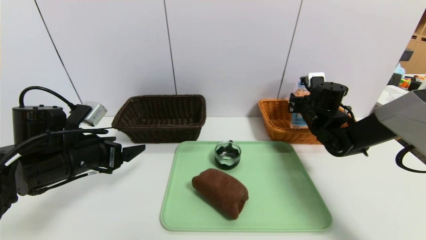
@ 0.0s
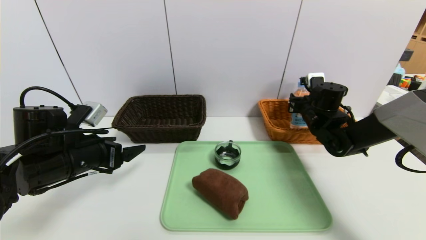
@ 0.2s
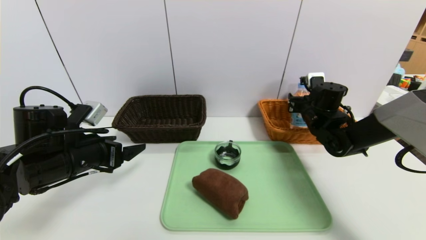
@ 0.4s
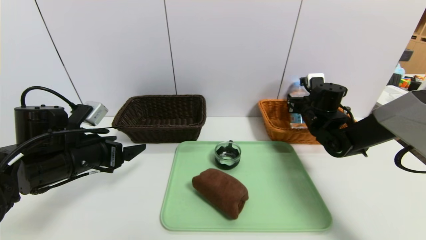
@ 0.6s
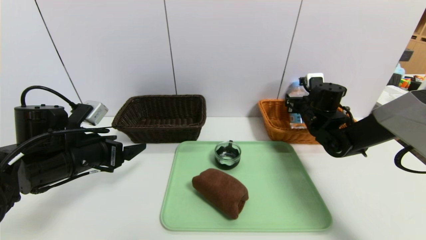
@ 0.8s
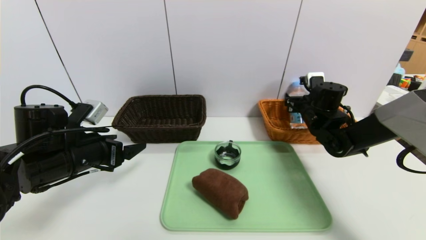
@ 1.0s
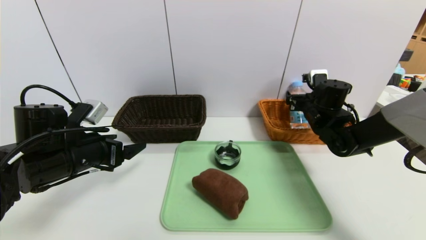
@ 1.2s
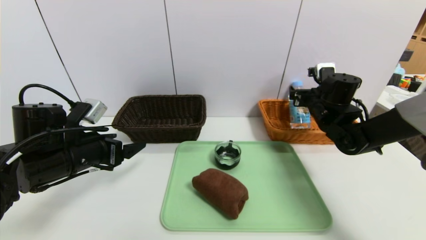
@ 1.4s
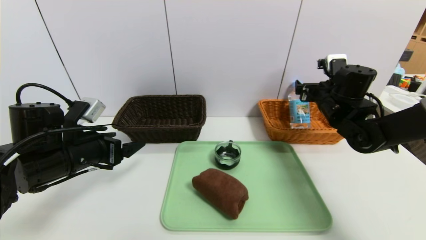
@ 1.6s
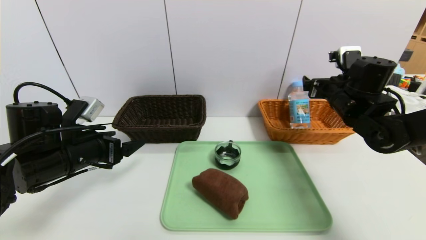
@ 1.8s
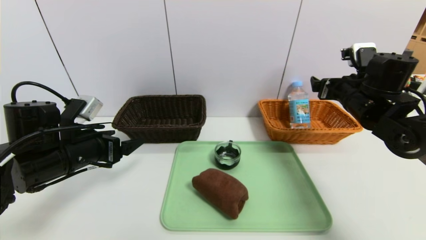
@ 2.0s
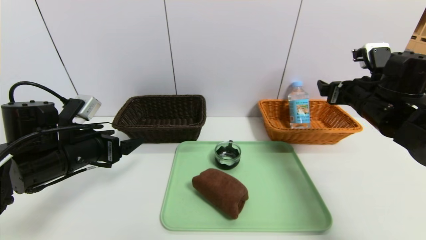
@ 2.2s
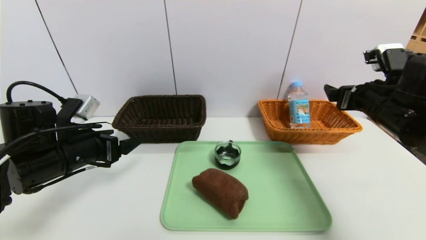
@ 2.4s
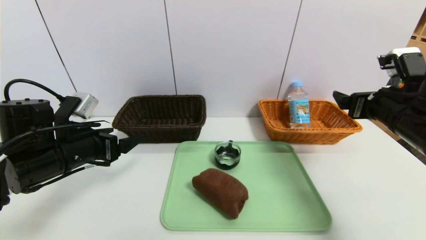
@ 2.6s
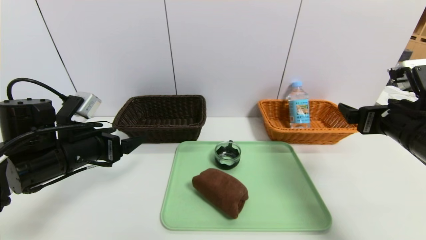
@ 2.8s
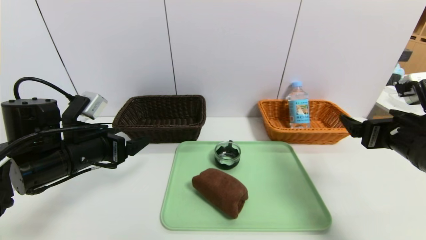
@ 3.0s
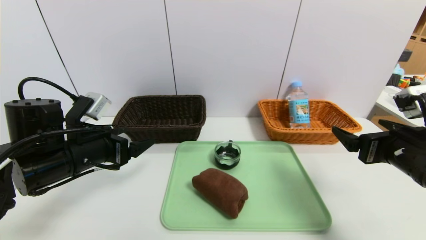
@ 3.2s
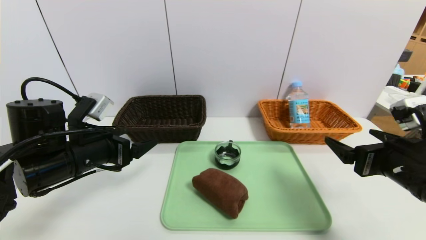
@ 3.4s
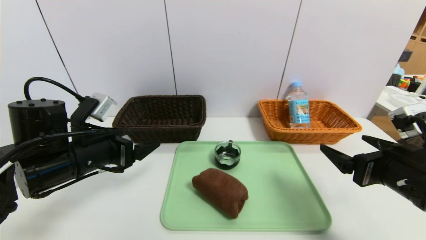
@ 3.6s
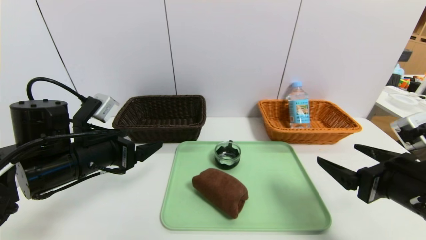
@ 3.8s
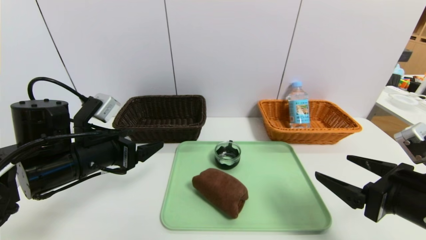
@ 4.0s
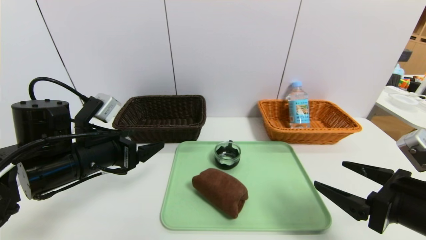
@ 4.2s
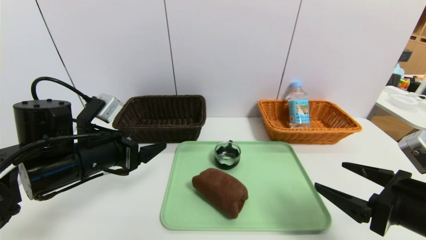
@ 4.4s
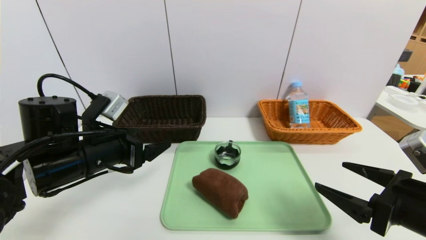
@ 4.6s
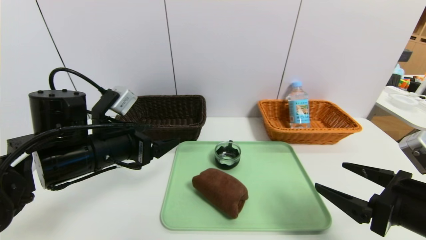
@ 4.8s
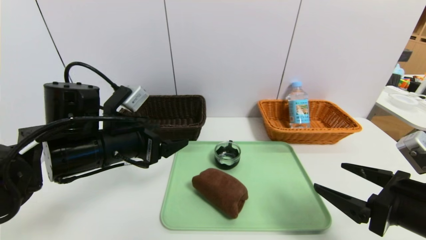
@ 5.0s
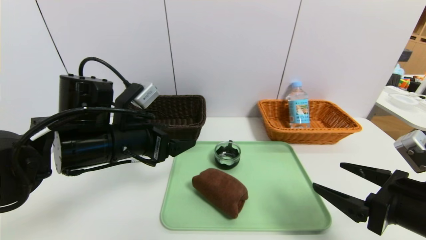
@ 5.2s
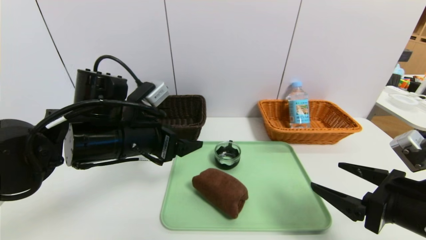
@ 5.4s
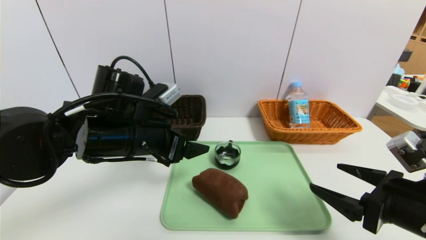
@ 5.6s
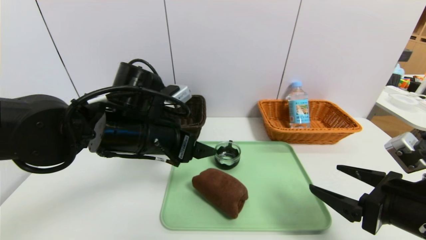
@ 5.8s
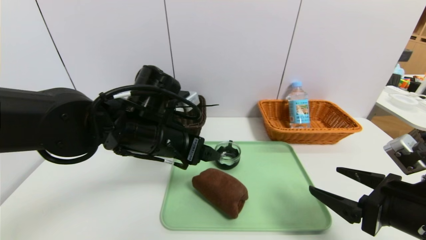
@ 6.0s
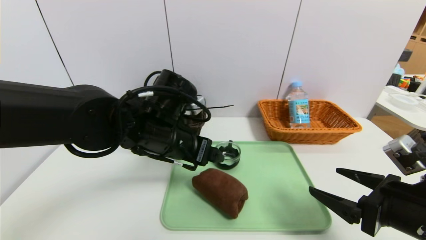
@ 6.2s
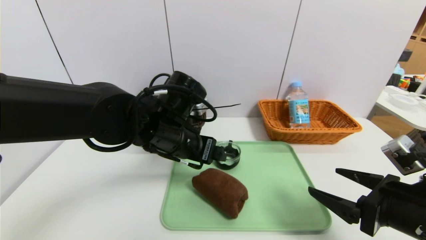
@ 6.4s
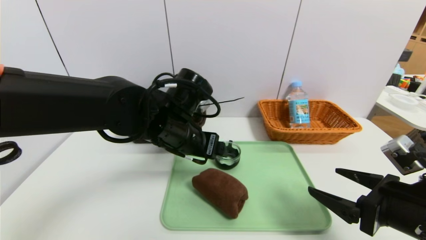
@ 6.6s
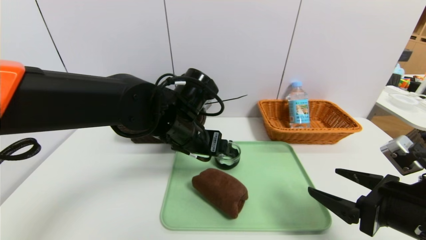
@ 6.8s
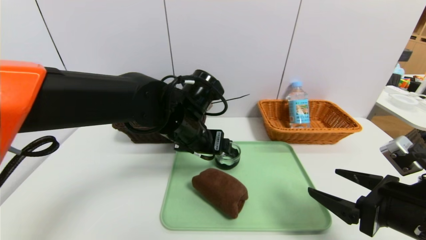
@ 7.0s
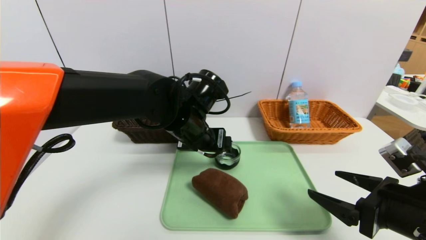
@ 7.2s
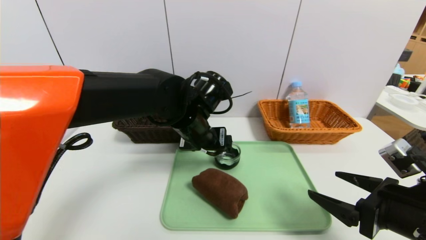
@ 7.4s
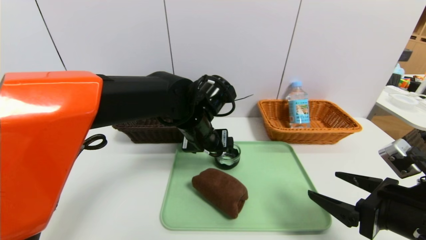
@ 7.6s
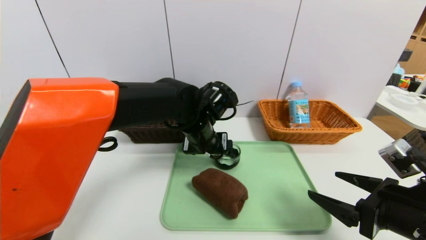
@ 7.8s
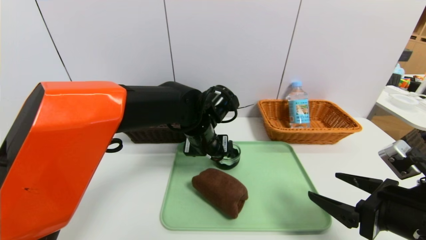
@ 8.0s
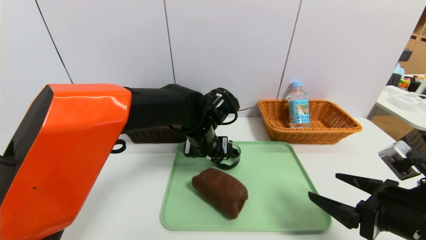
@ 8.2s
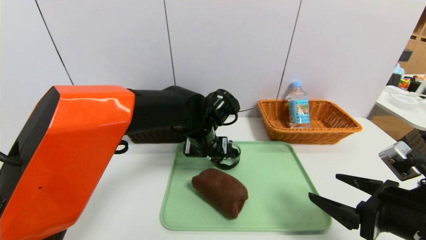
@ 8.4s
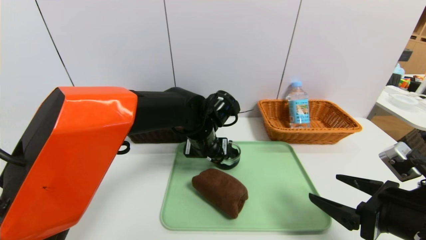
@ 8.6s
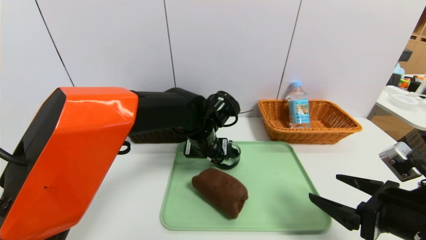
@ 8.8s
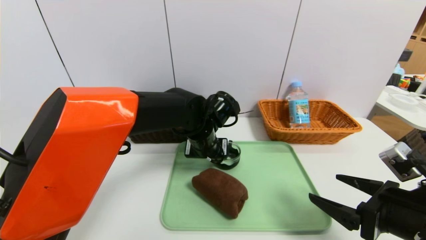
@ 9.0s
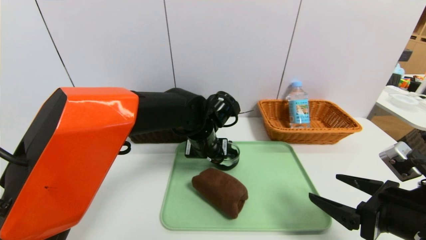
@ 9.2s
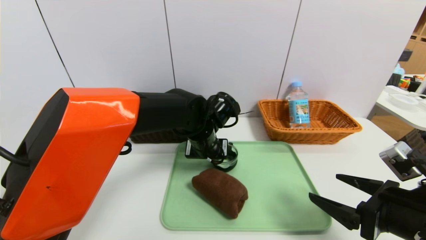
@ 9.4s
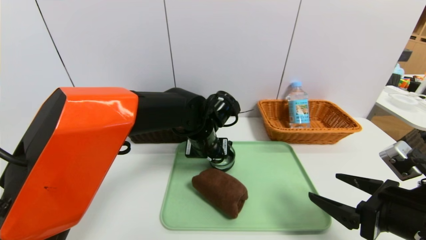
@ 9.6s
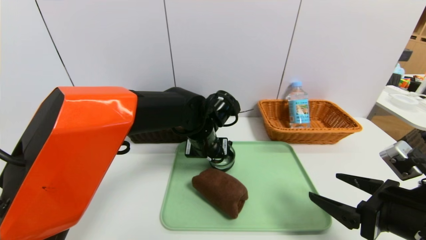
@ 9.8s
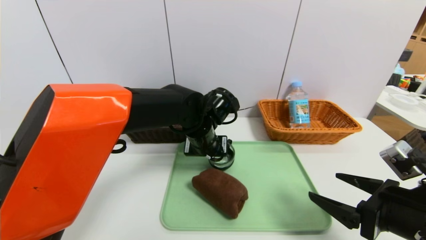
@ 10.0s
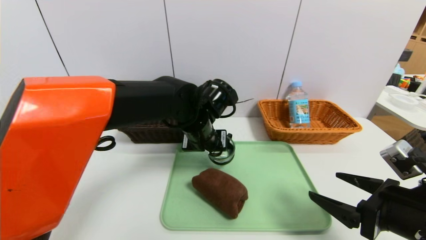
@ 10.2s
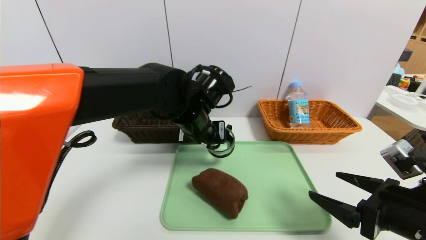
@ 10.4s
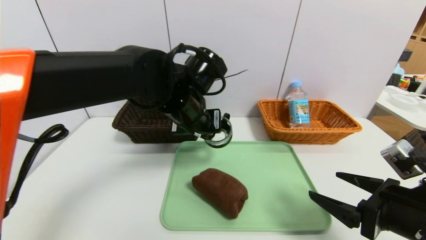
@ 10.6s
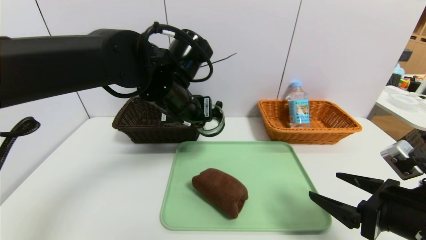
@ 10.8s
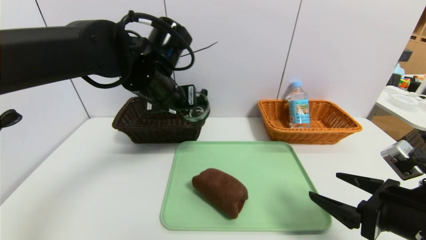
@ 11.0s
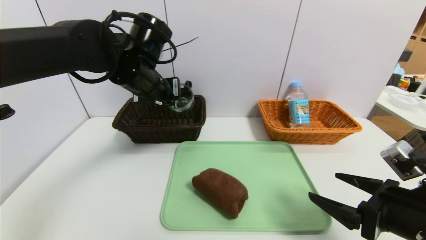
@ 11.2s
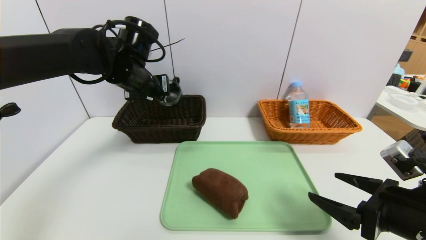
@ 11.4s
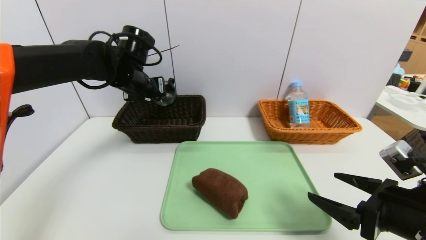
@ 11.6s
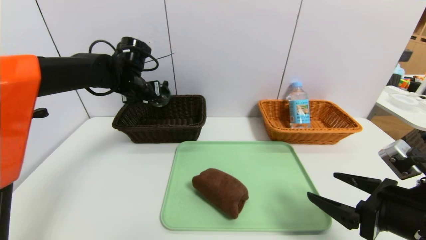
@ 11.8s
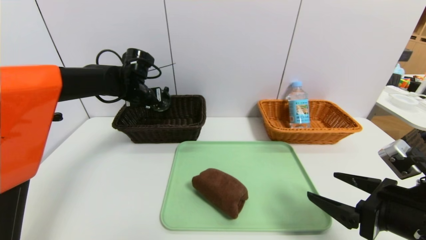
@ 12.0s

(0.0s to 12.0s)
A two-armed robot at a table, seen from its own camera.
Task of the whole recording: place the food in the right basket with the right gripper, and place the non food items in the left basket with the left gripper.
0.0s - 1.6s: The right gripper is displaced upward by some 5 cm, and opens its fingers.
1.6s - 3.0s: The right gripper is displaced backward by approximately 20 cm.
3.0s - 4.4s: The right gripper travels backward by about 5 cm.
4.4s - 6.0s: The left gripper shifts some 10 cm to the right.
6.0s - 7.6s: The left gripper travels to the right and forward by roughly 10 cm.
9.0s - 10.4s: The left gripper travels upward by approximately 5 cm, and closes up.
10.4s - 12.0s: The left gripper heads to the left and forward, covering approximately 20 cm.

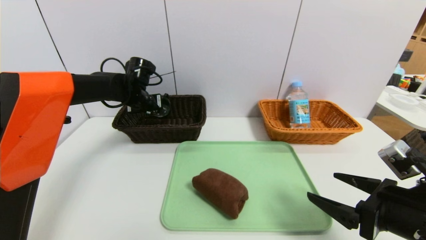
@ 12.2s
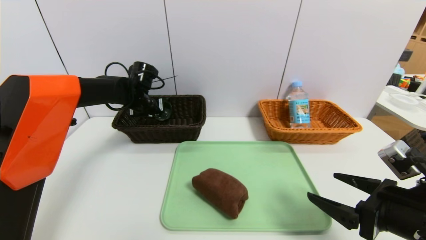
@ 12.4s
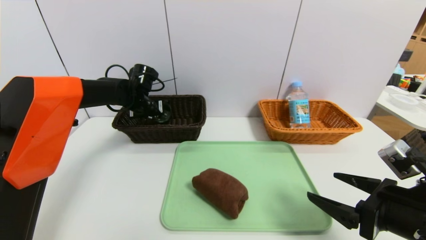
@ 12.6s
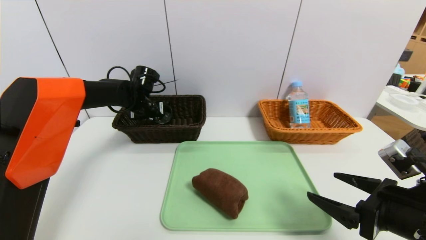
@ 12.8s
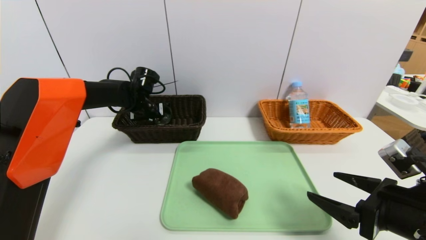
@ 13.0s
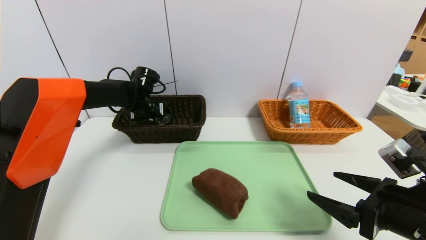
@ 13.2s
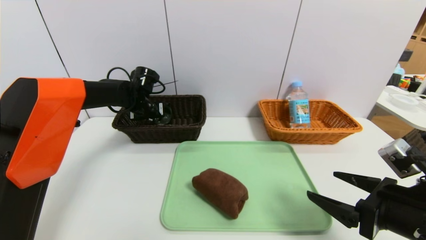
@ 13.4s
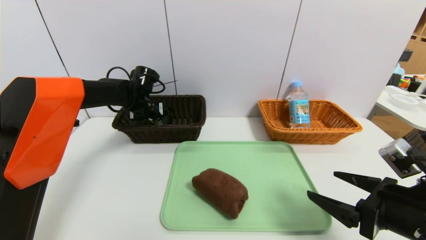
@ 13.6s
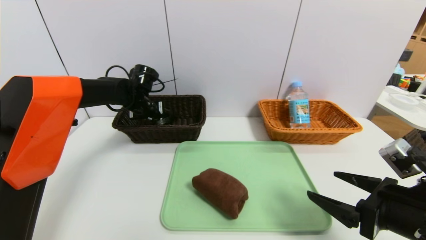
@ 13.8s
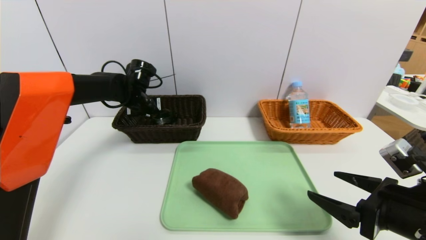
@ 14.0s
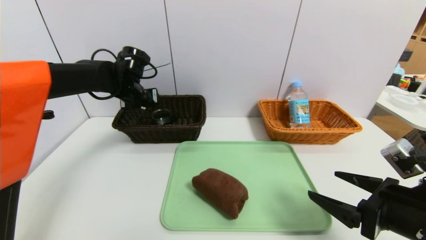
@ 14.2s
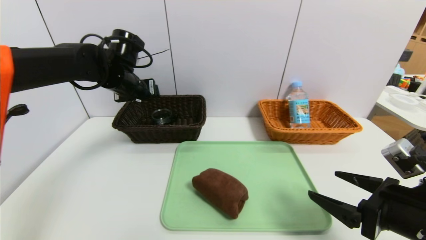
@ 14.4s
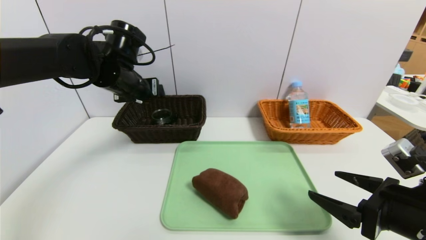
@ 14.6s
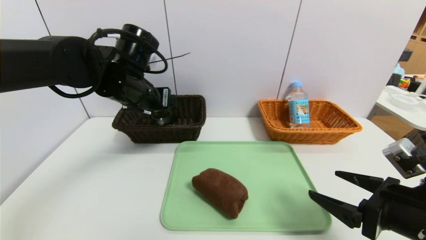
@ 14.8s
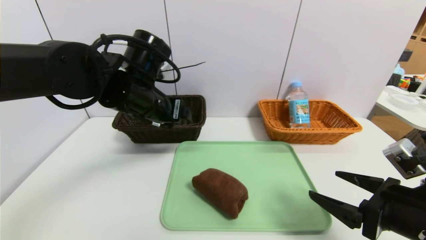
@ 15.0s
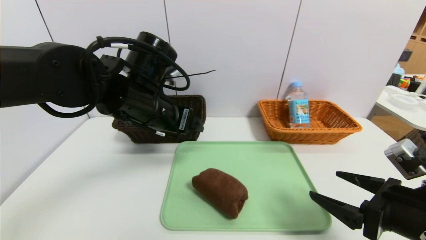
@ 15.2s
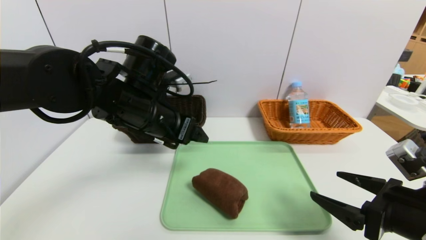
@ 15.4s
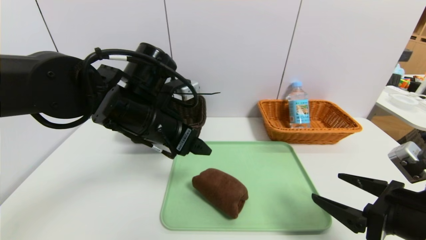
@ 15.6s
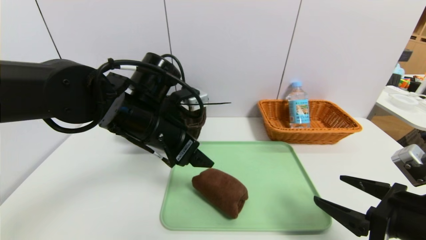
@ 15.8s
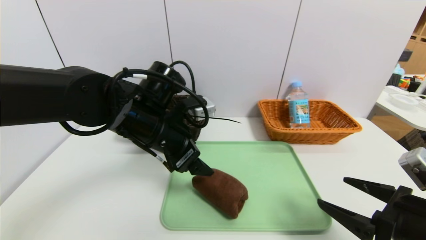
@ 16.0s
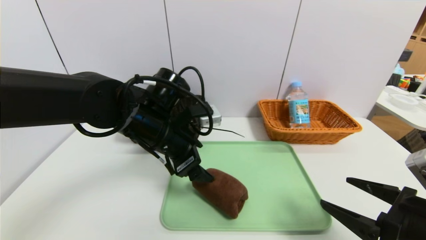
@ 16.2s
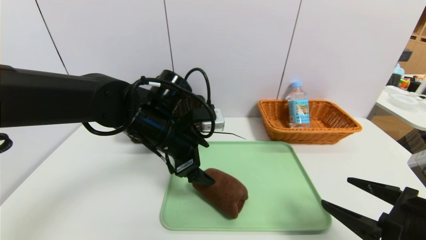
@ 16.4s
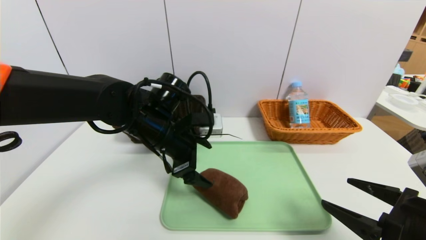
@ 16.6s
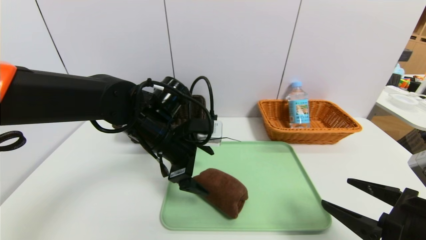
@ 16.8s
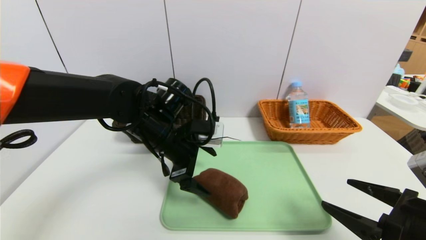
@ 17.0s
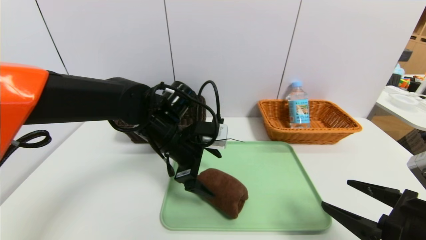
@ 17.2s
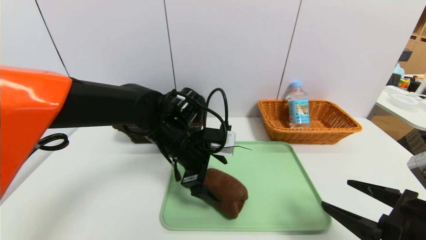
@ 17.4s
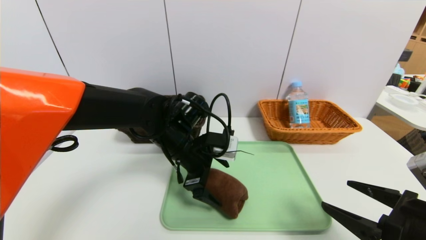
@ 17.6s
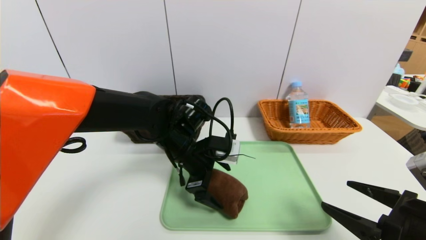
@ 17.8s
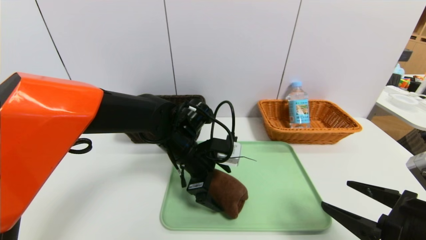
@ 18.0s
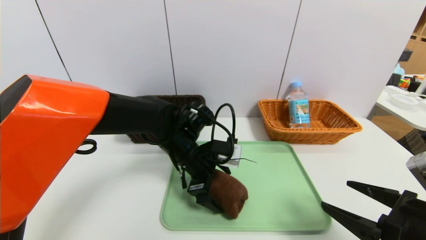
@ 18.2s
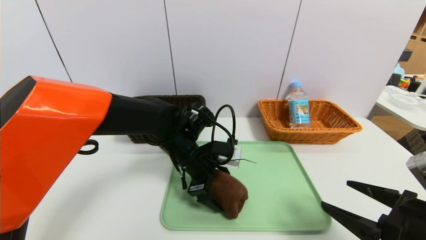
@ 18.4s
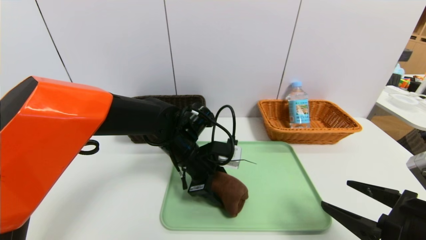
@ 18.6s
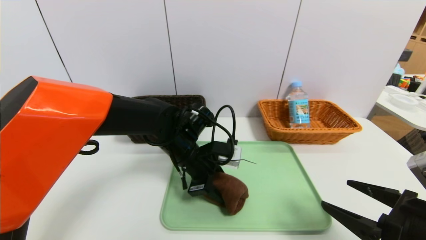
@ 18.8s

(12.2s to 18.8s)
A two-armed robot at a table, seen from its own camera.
Task of the whole recording: place the food in the right basket with the right gripper, and place the non food items in the left basket with the left gripper.
Step, 12.2s - 14.4s: Grasp the tea cup and put it in the left basket.
12.2s - 13.8s: The left gripper opens.
13.8s - 15.4s: The left gripper heads backward, to the right and upward, covering approximately 20 cm, and opens.
15.4s - 17.2s: The left gripper shifts some 5 cm downward.
17.2s - 18.8s: The left gripper changes place by about 5 cm, and closes.
